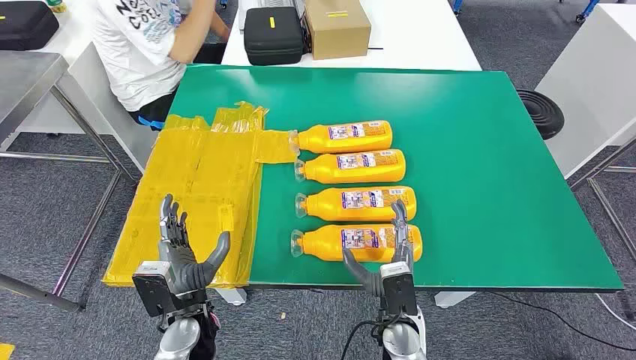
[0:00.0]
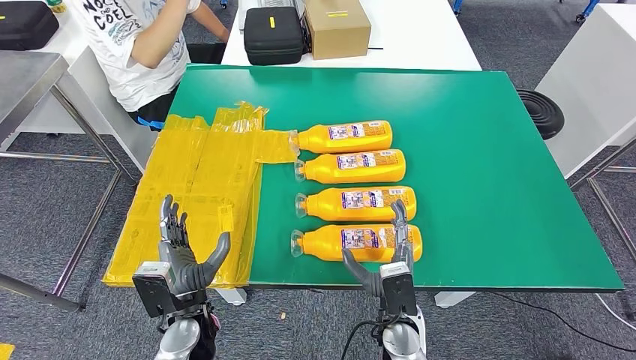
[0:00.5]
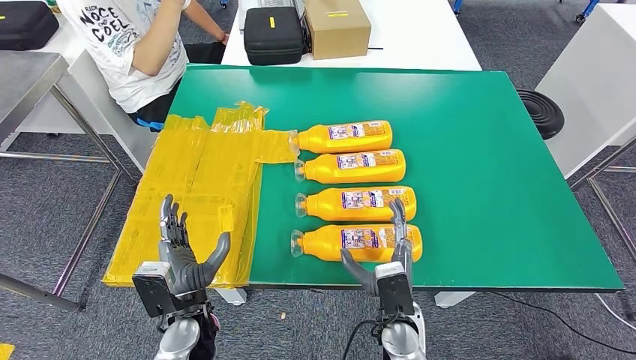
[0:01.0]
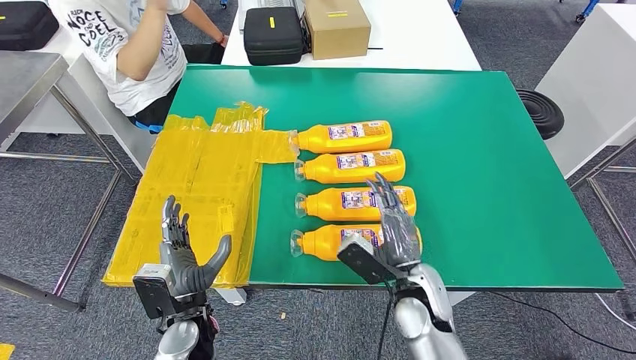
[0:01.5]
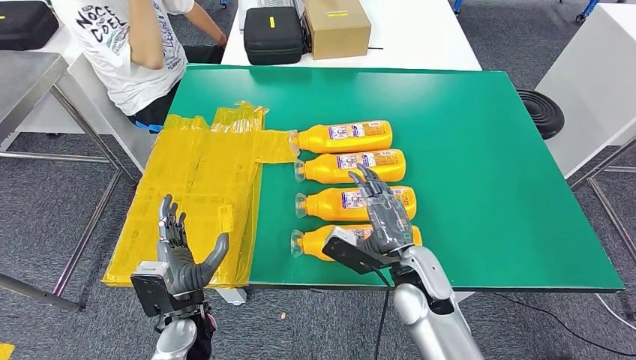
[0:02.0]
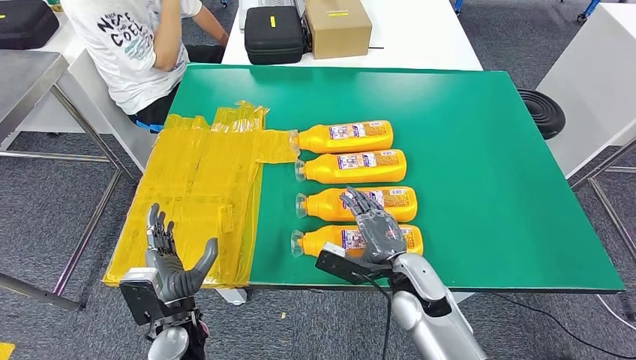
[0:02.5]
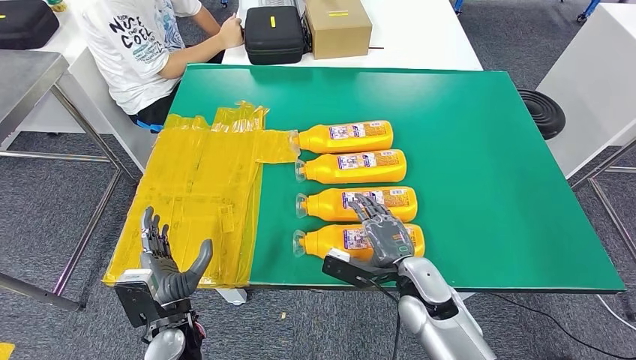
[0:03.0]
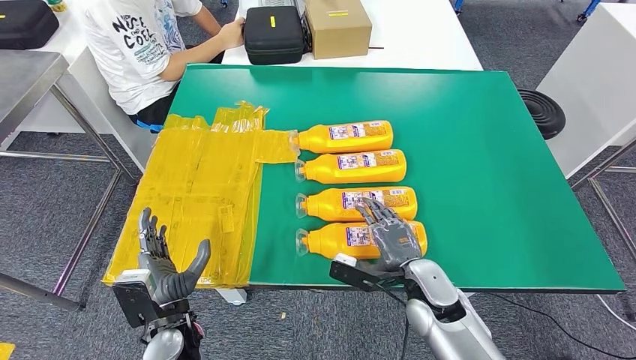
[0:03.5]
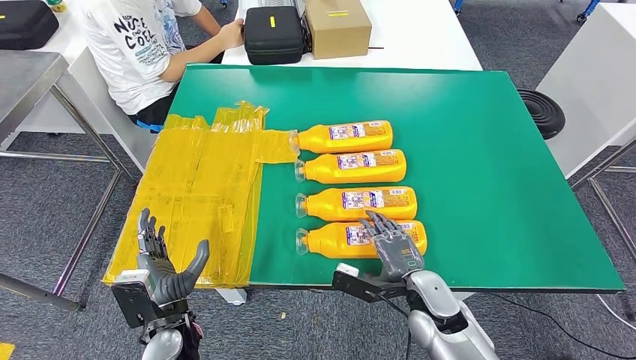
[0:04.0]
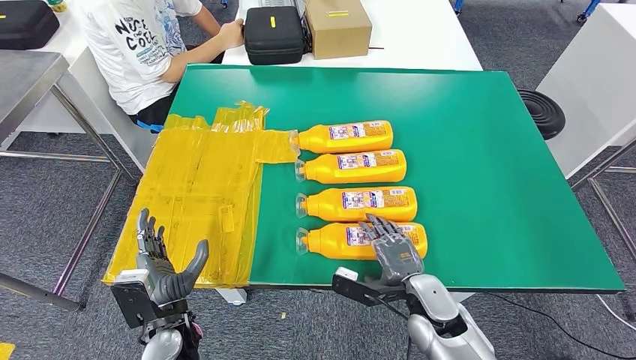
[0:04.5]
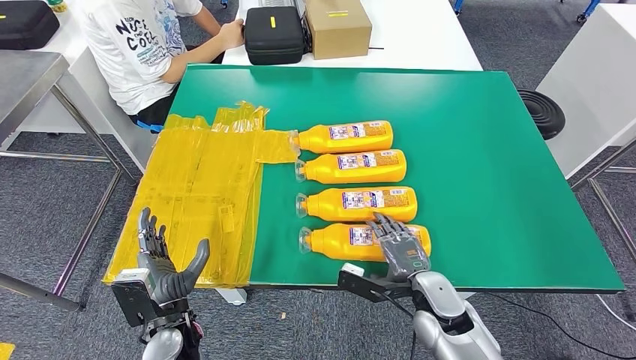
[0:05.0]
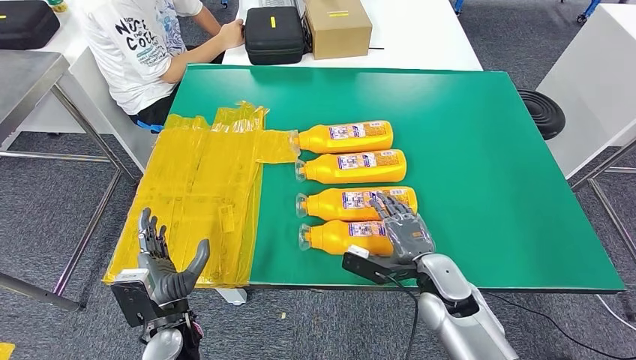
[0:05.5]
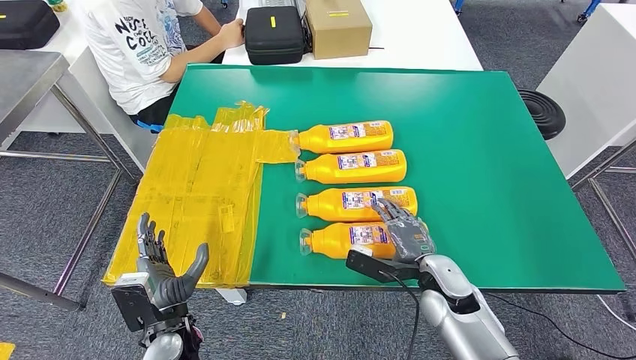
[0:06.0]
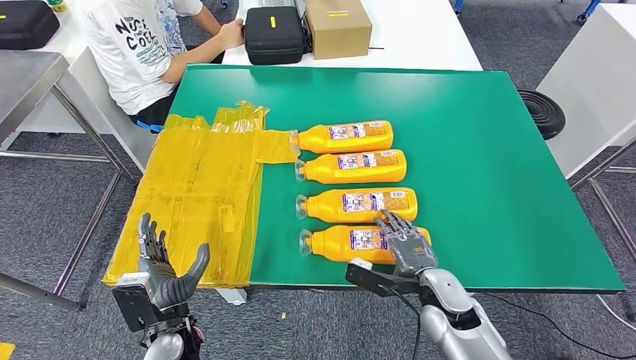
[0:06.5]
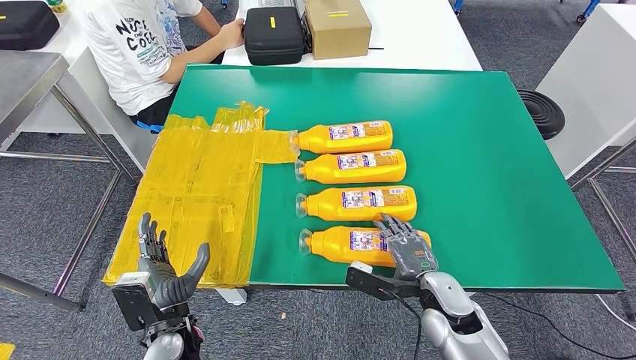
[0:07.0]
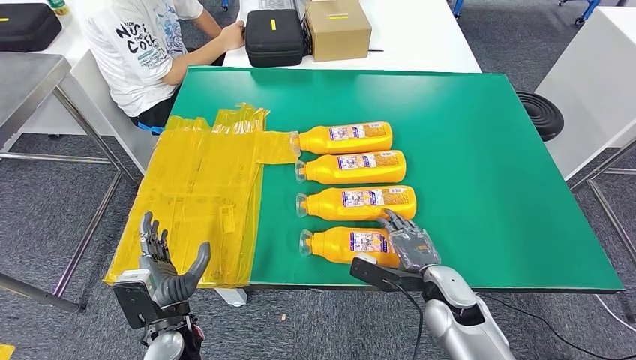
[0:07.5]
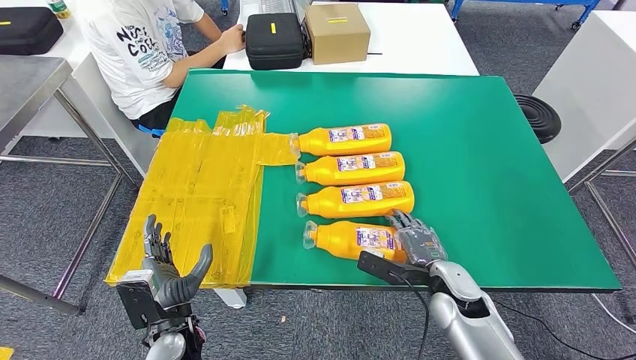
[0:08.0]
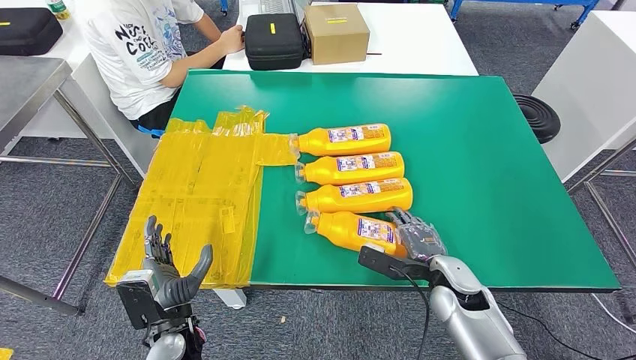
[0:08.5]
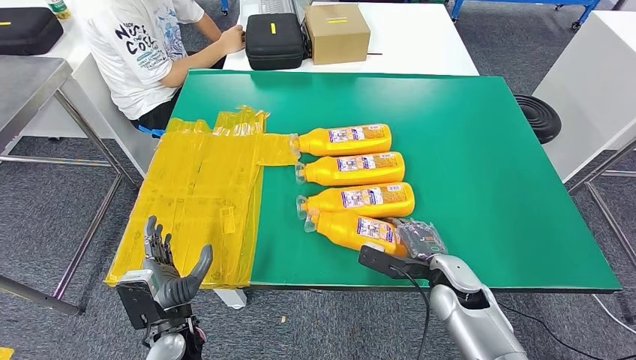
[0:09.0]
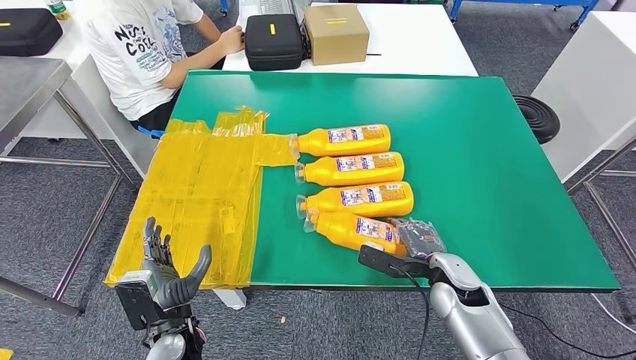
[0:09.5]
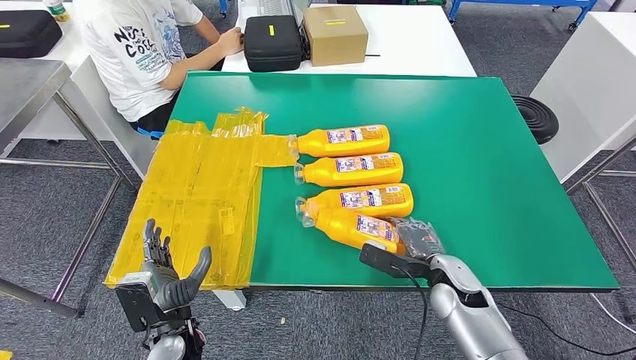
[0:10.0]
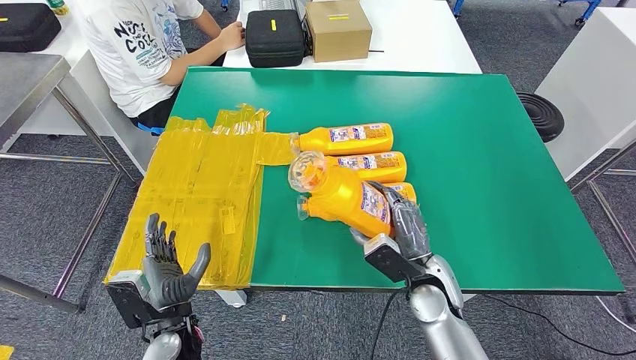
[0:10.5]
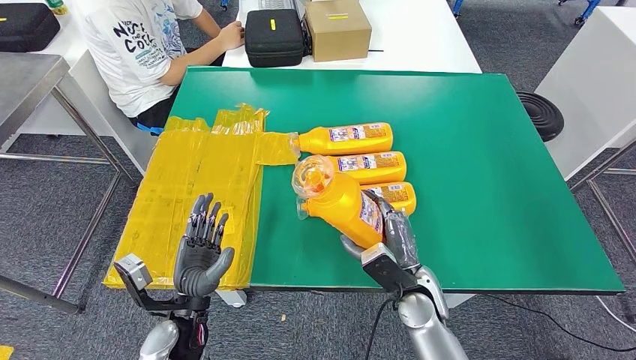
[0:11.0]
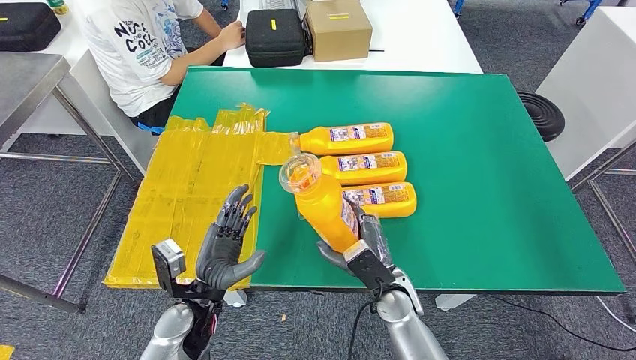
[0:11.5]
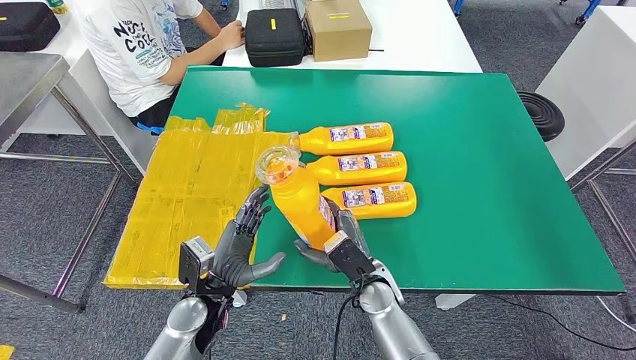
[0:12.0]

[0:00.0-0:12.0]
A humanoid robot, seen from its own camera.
0:02.0 to 0:04.0: The right hand shifts approximately 5 cm downward.
0:04.0 to 0:08.0: The hands make only small movements.
0:08.0 to 0:10.0: There are only small adjustments of the hands.

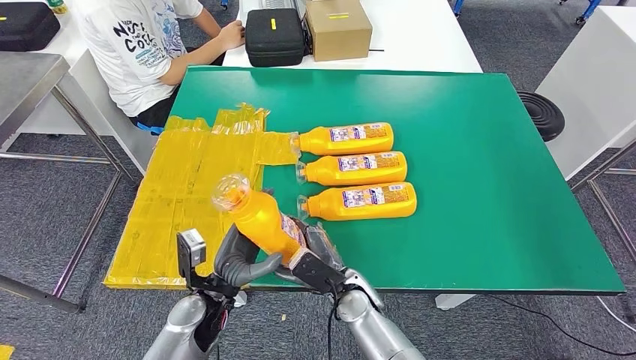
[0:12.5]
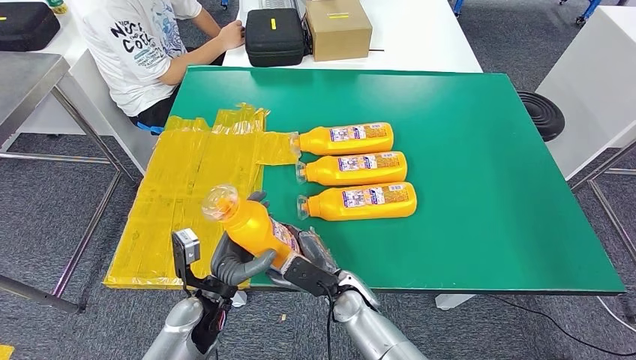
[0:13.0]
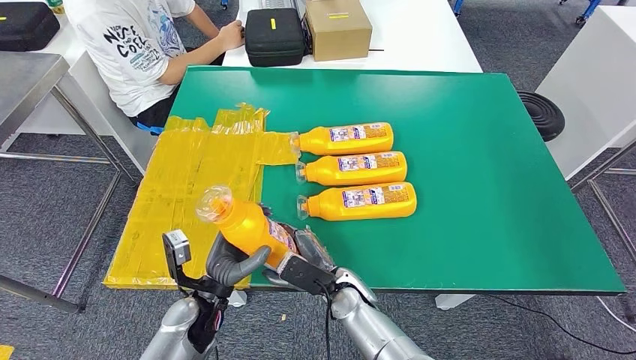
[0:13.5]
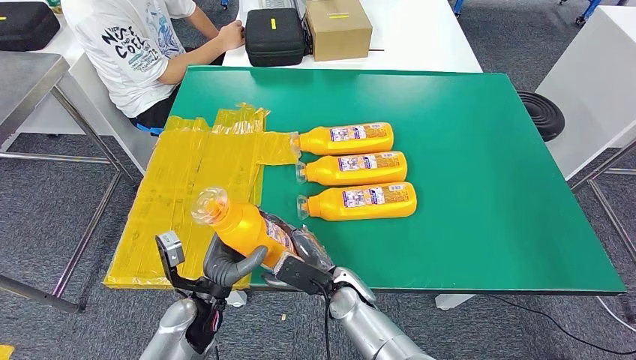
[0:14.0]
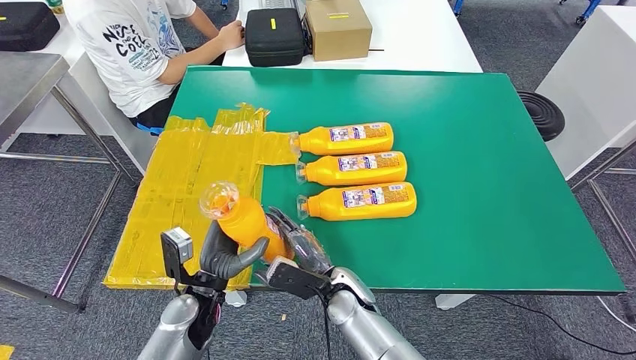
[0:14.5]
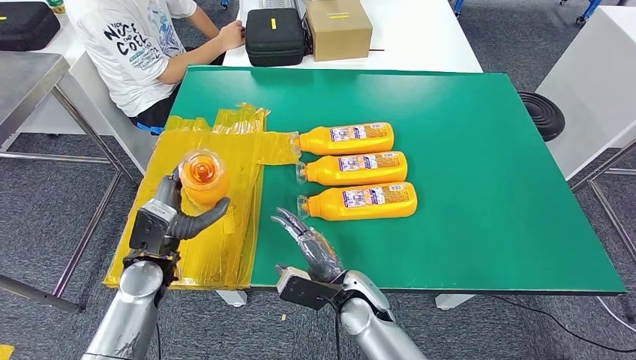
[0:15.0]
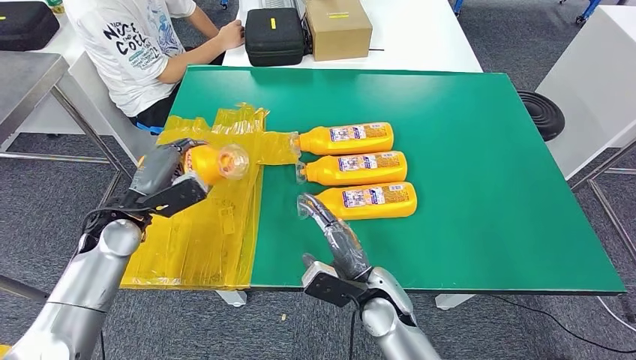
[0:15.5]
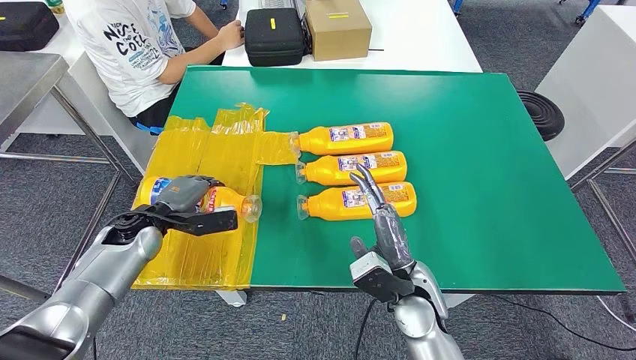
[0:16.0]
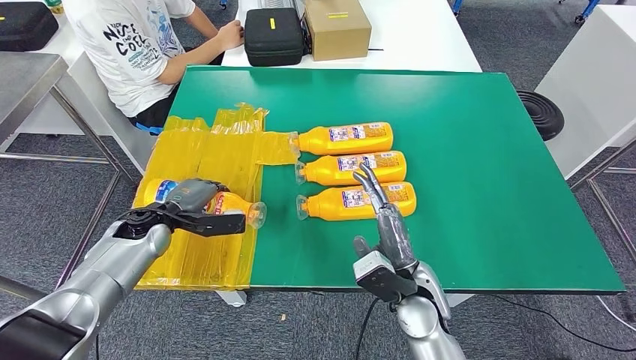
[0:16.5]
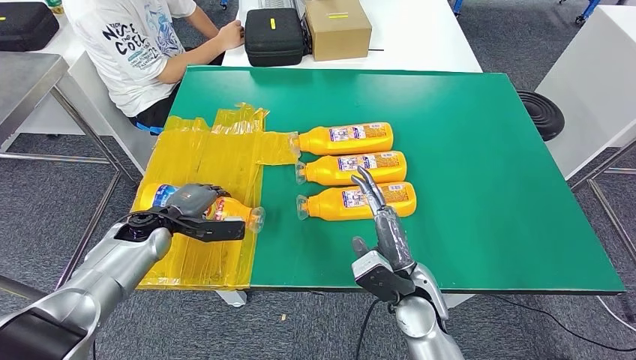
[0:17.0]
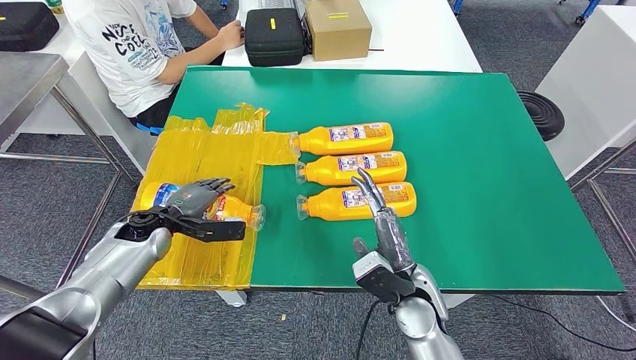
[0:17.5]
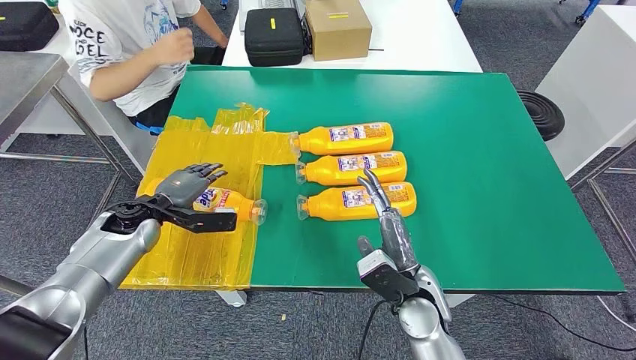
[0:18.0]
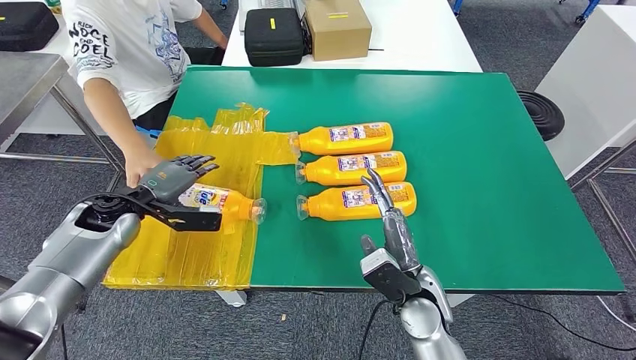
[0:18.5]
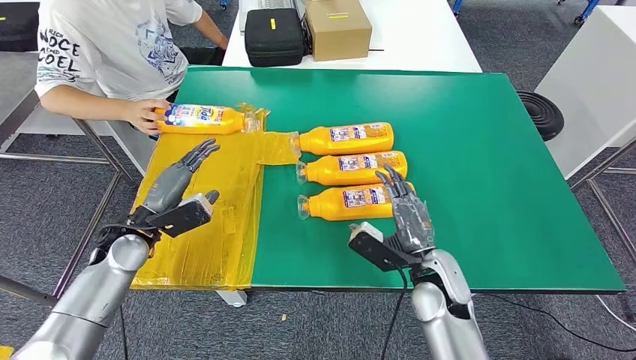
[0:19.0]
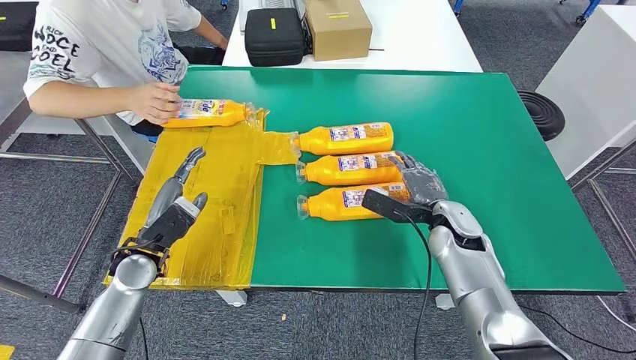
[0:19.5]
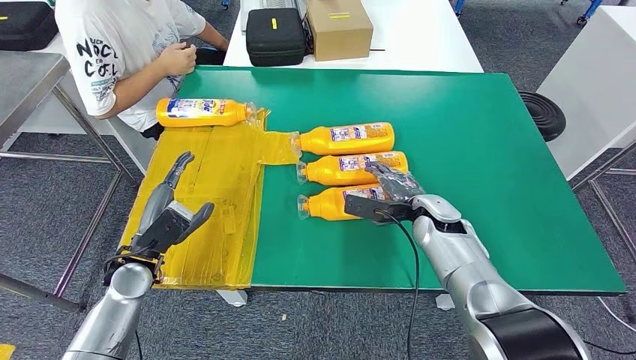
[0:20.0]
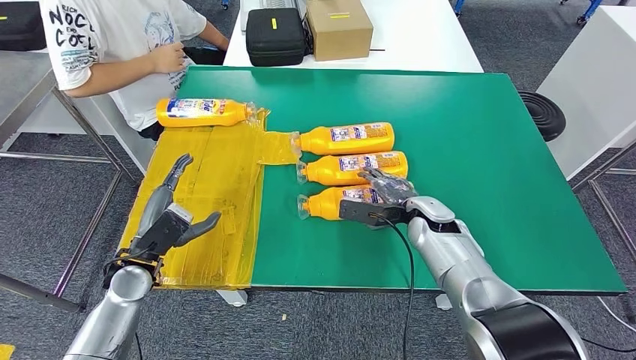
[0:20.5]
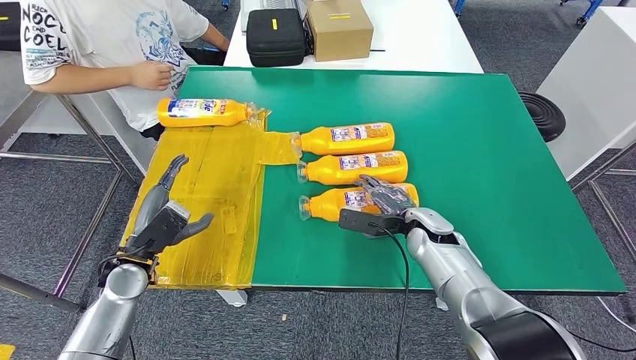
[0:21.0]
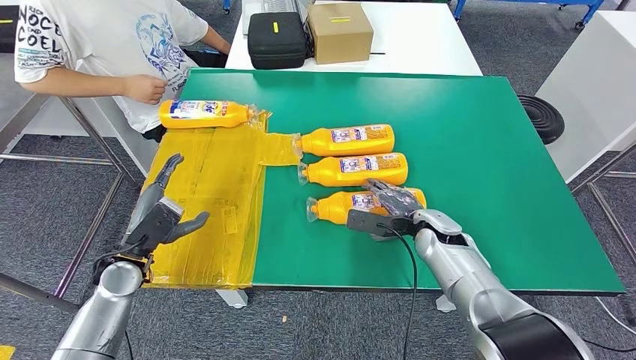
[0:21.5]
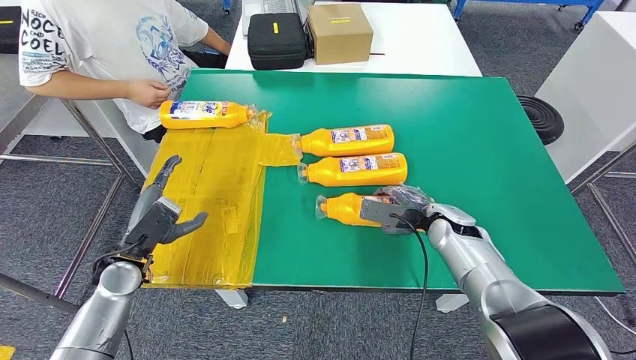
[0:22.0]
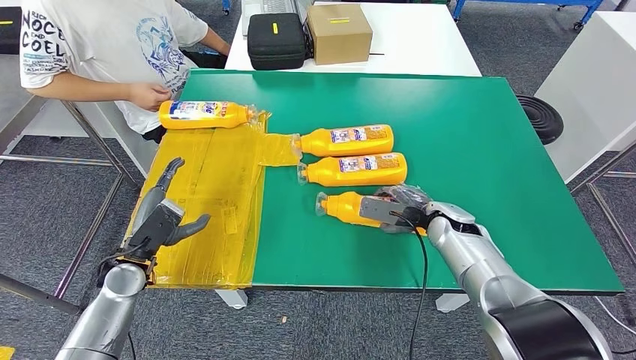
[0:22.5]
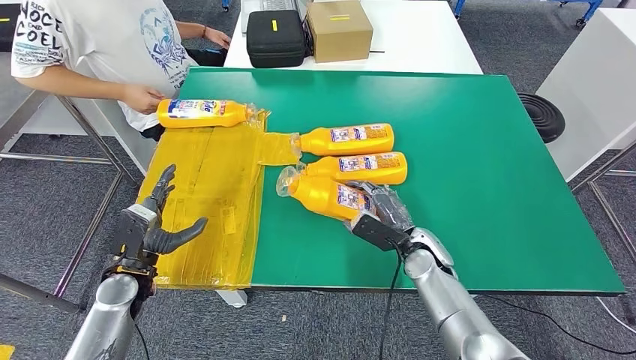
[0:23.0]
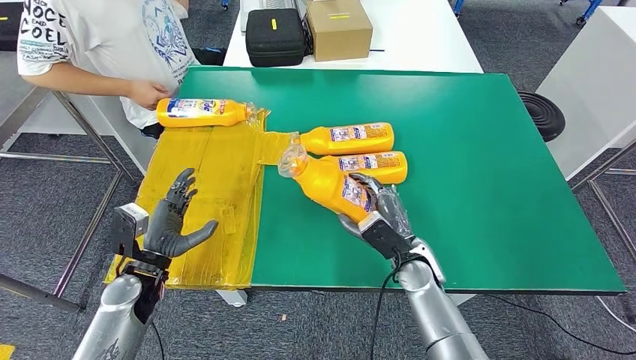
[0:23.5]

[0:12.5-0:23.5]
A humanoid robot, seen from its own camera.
Step, 0:12.5 to 0:17.5: Flip the bottle to face forward.
0:12.5 to 0:14.5: The hands stay close to where they were, moving slightly.
0:14.5 to 0:16.0: The right hand heads to the right and upward, covering roughly 15 cm. Meanwhile the left hand heads forward and to the left, covering about 20 cm.
0:16.0 to 0:18.0: There are only small adjustments of the hands.
